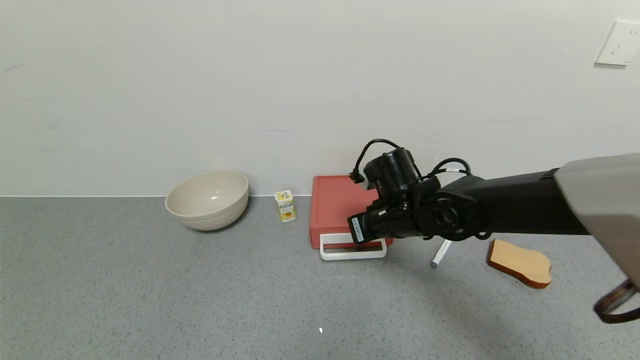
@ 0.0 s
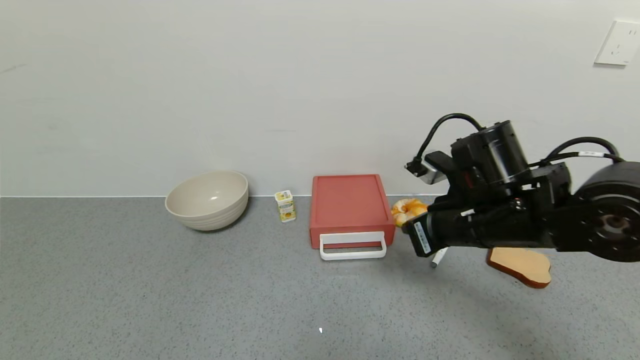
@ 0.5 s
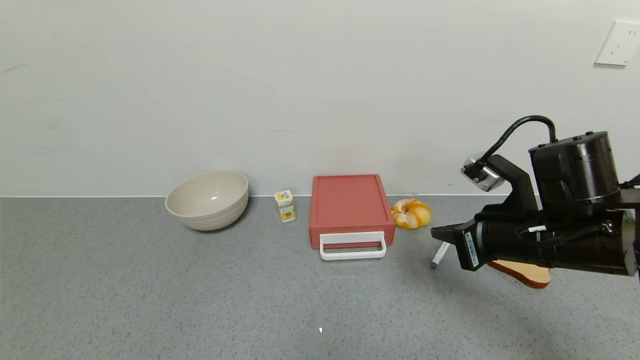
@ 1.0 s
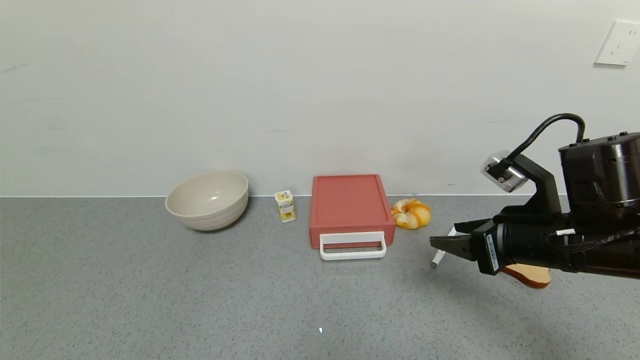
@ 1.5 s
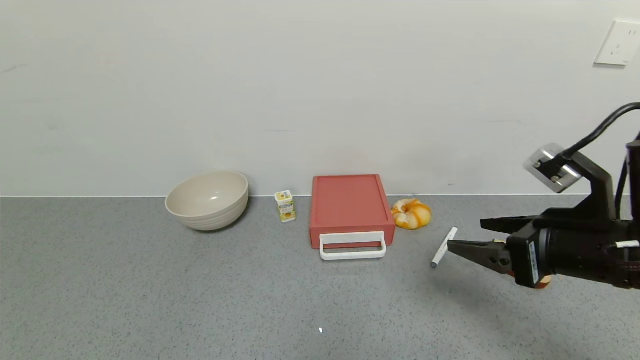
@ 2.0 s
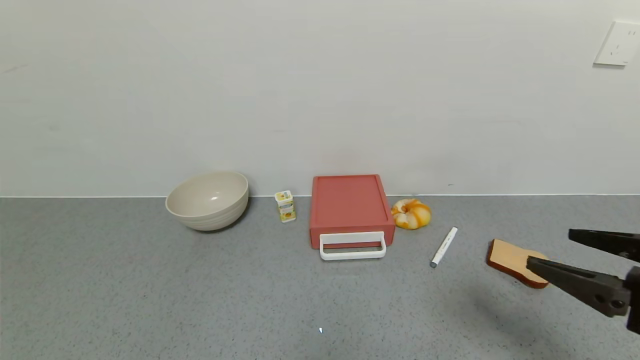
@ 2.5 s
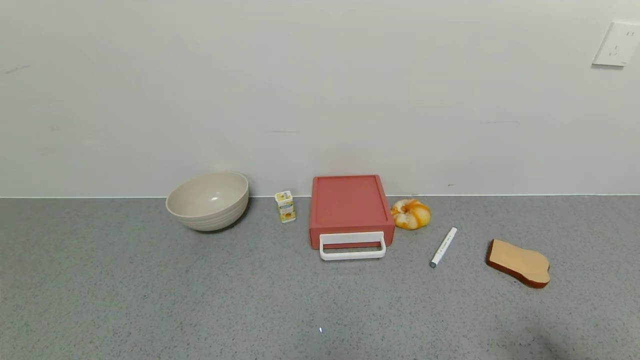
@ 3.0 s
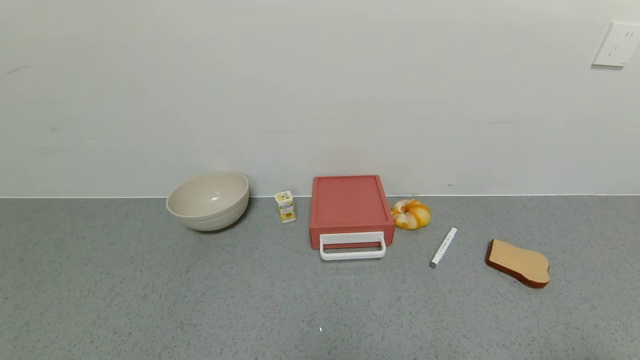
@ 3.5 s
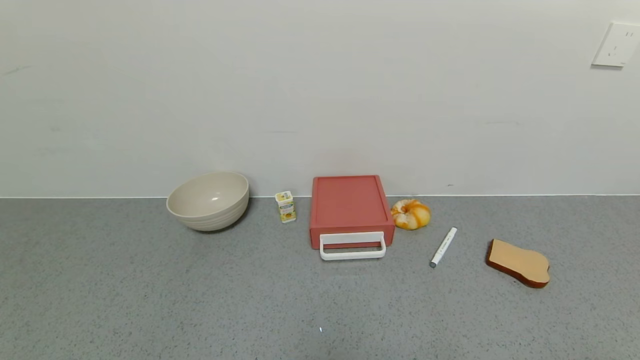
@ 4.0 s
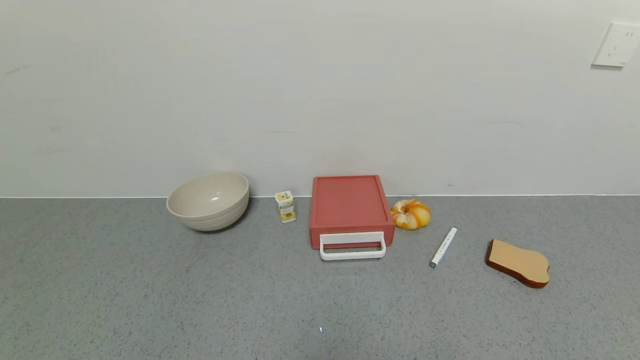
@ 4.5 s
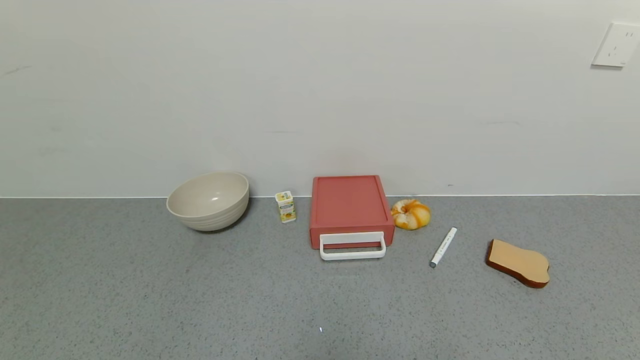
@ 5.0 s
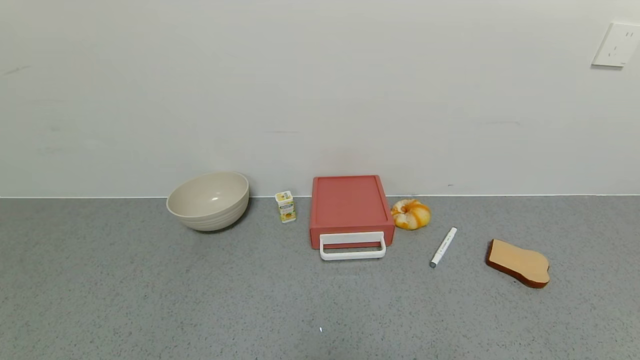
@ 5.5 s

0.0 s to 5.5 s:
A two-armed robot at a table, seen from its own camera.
Task of the whole recording: use the gripper to open the drawer and close the red drawer.
0.0 to 2.0 s: The right gripper travels backward, to the right and upward by about 25 cm, and opens.
2.0 to 3.5 s: The right gripper goes approximately 25 cm backward and to the right.
